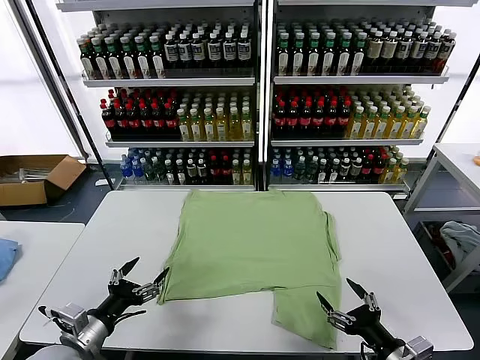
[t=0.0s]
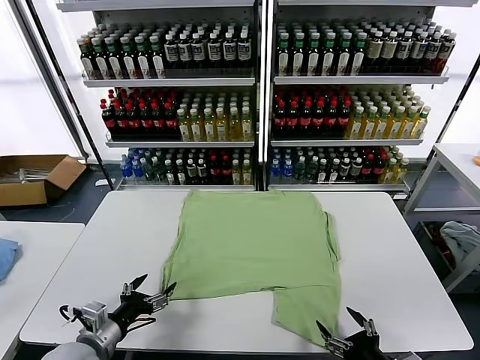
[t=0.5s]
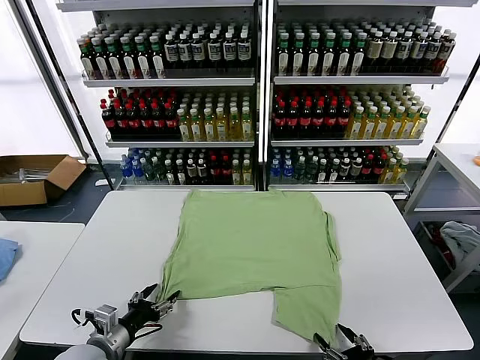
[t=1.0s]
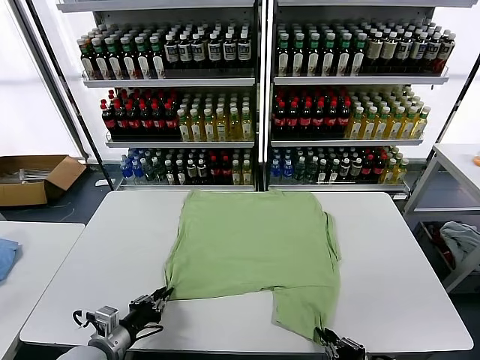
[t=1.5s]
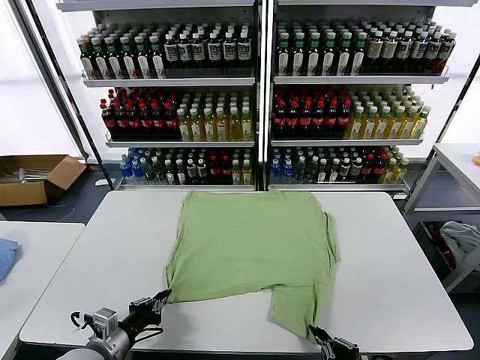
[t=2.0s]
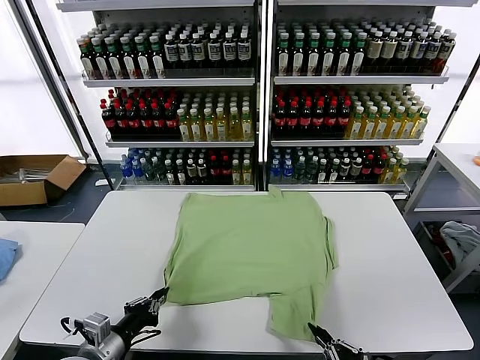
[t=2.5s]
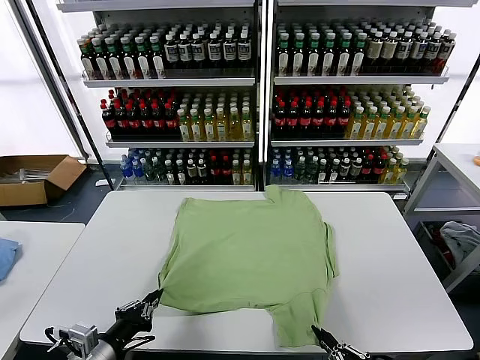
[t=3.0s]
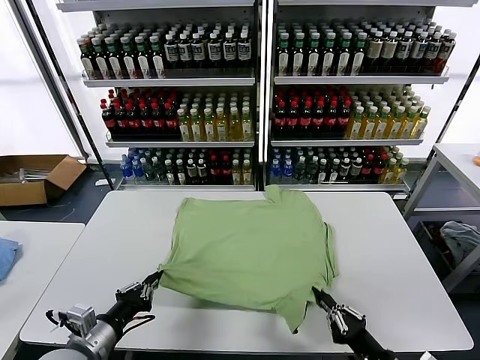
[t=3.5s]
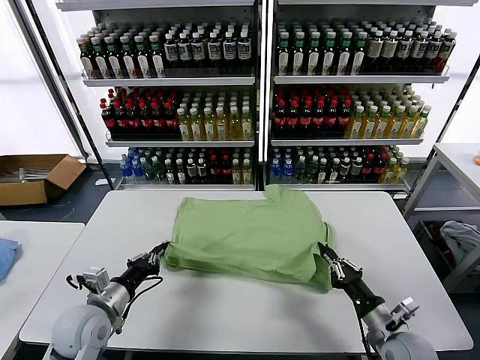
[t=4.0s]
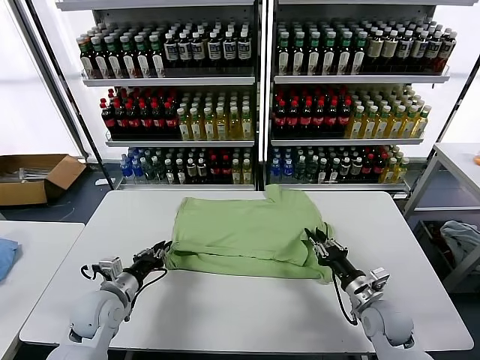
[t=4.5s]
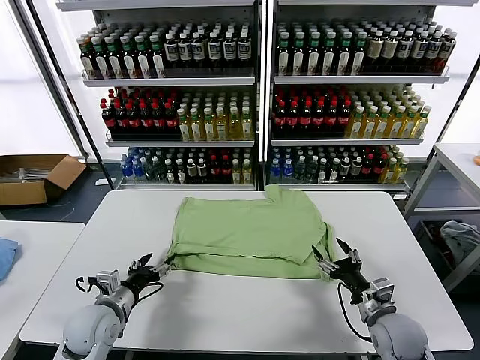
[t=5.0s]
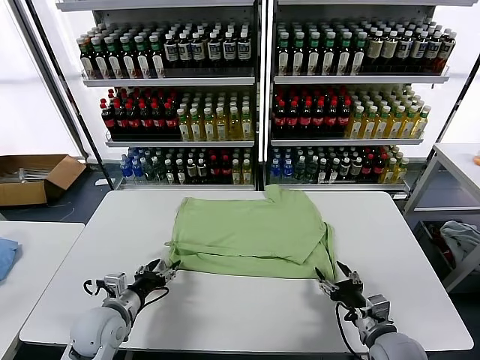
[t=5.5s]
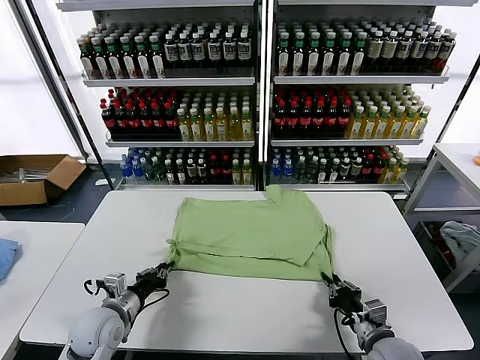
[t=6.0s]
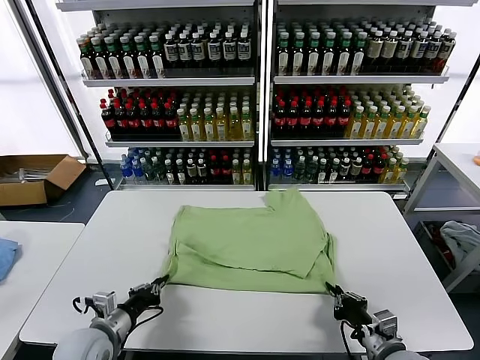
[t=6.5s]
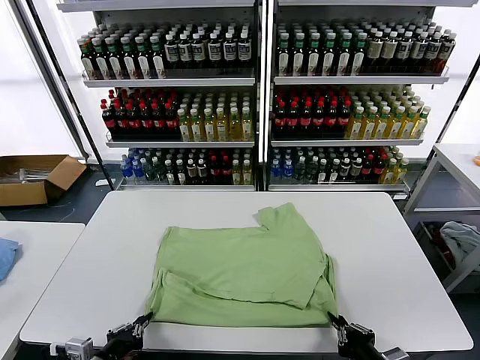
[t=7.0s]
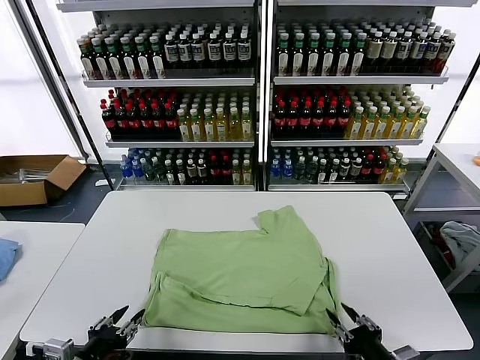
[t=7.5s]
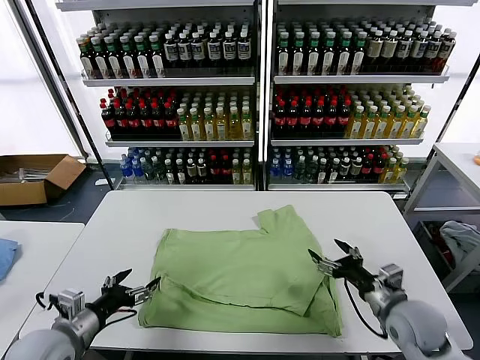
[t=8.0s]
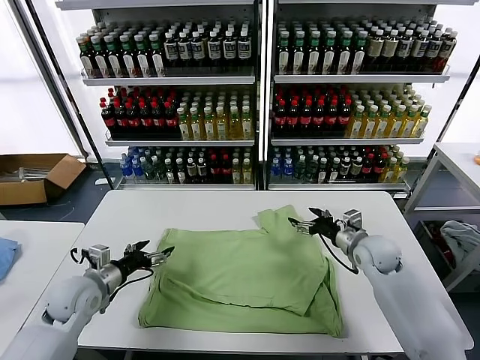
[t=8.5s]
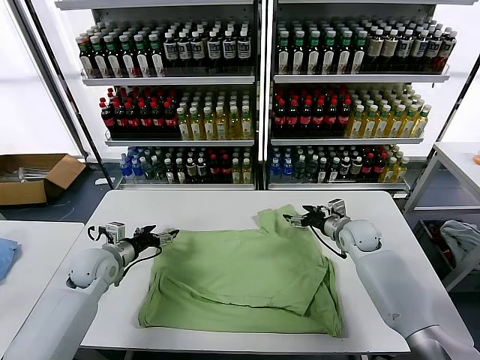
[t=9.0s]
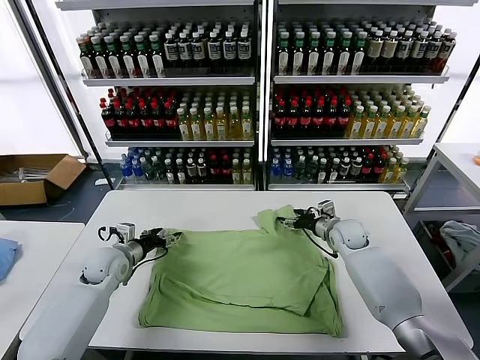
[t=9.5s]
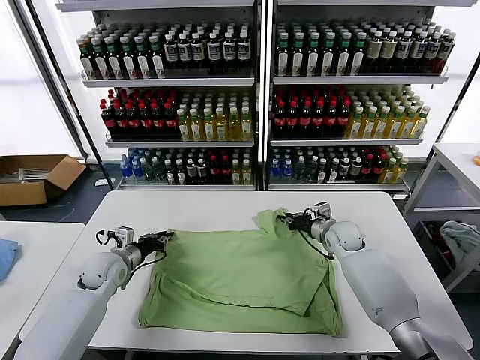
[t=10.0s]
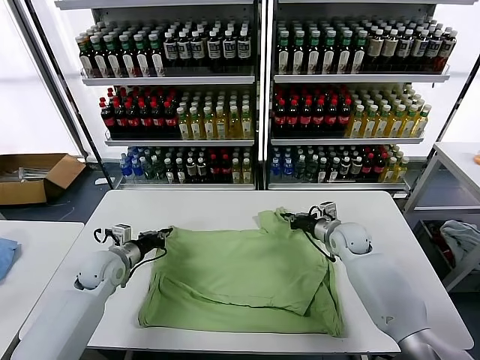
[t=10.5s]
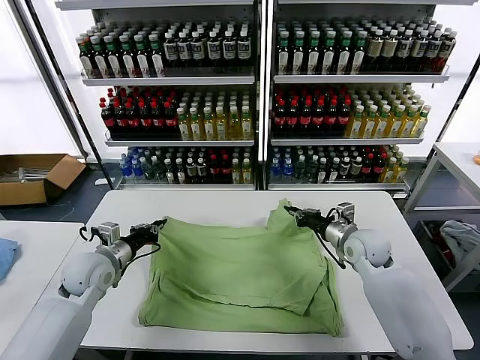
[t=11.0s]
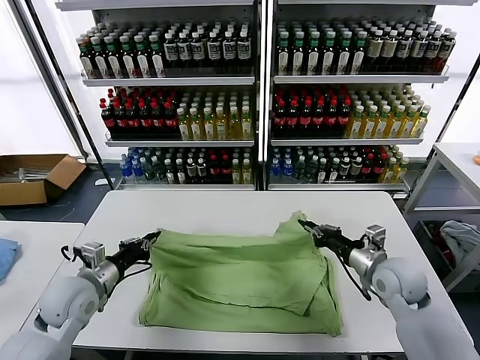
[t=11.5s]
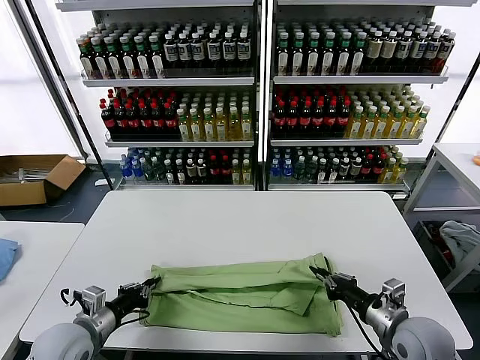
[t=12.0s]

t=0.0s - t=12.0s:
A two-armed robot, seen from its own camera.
Task of the whole recording: fold and organize the clothes.
Step, t=0.0s - t=1.5s: use both grippers simultaneously to clamp the lower edge of the clothing fabric.
Step, t=2.0s - t=4.5s: use both grippers to drag the lower edge of the fabric forward and fold it over the upper edge.
Step, t=5.5s - t=7.0s: Drag the clothes downward with both gripper.
Step, t=8.0s - t=10.0s: use both grippers simultaneously to clamp the upper edge of the clothing fabric.
t=2.0s - t=4.0s: The right gripper moves forward, roughly 15 cm; the left gripper heads forward, covering approximately 10 cm.
t=4.0s - t=6.0s: The left gripper opens and closes again, while the right gripper opens and closes again.
t=6.0s - t=8.0s: The left gripper travels backward and upward by roughly 10 cm, and opens, while the right gripper travels forward and upward by roughly 10 cm, and opens its fingers.
t=8.0s - t=10.0s: Both grippers move forward, some 20 cm. The left gripper closes its fingers; the right gripper closes its fingers.
t=10.0s - t=12.0s: The right gripper goes some 30 cm backward; the left gripper goes some 20 cm backward.

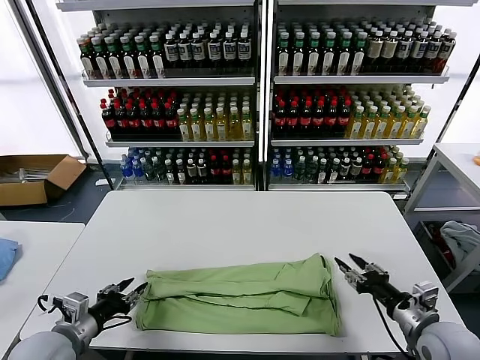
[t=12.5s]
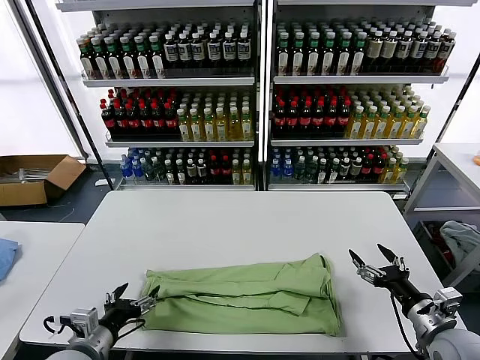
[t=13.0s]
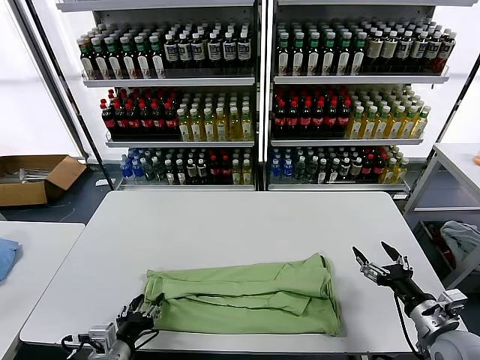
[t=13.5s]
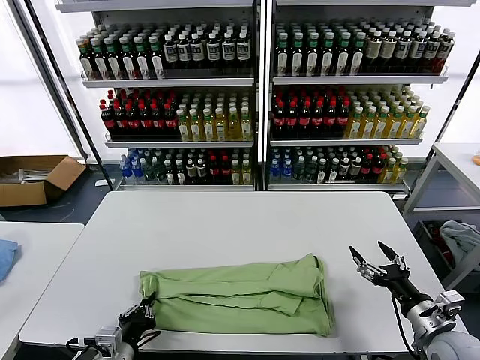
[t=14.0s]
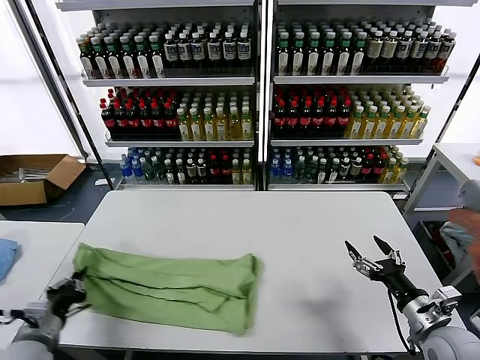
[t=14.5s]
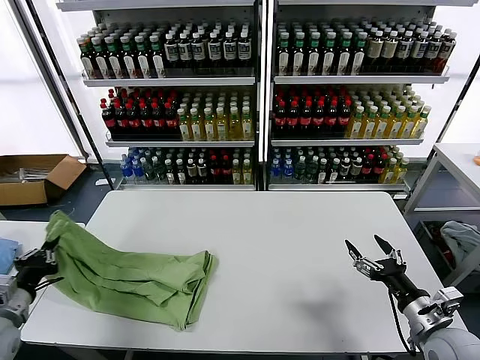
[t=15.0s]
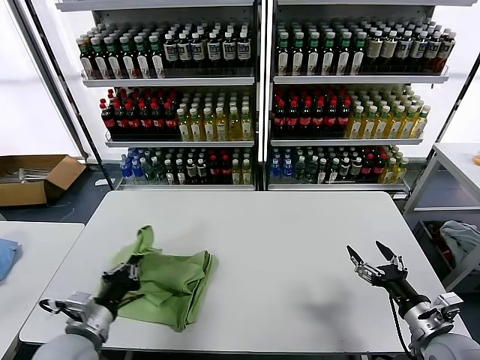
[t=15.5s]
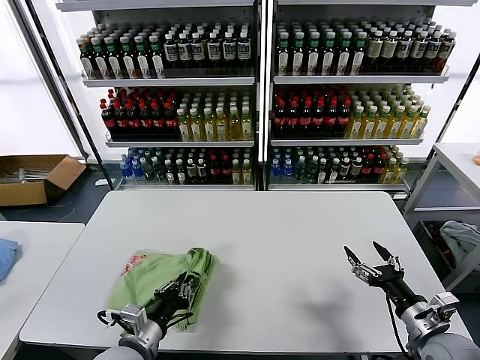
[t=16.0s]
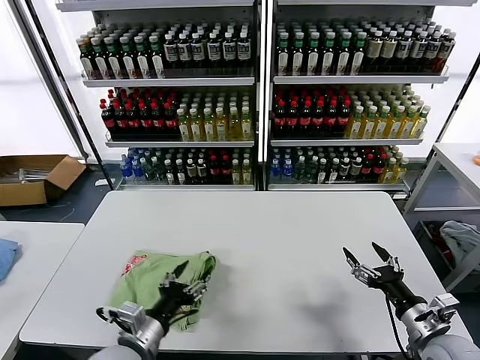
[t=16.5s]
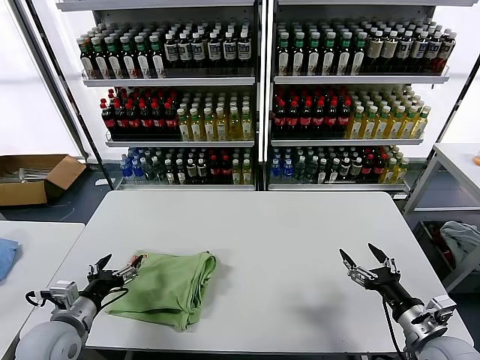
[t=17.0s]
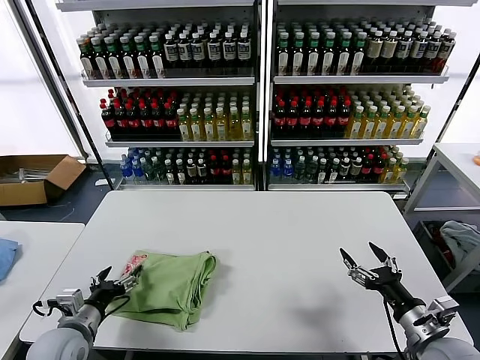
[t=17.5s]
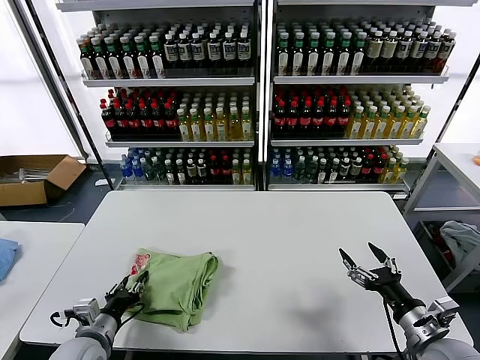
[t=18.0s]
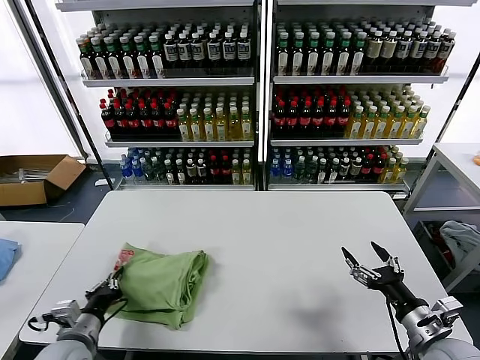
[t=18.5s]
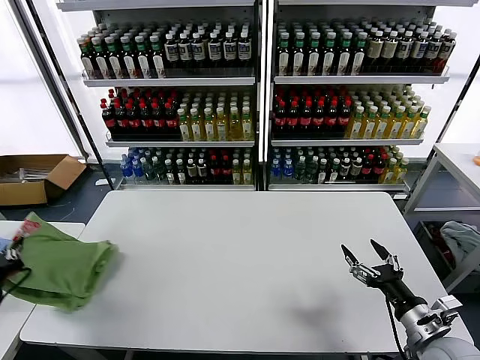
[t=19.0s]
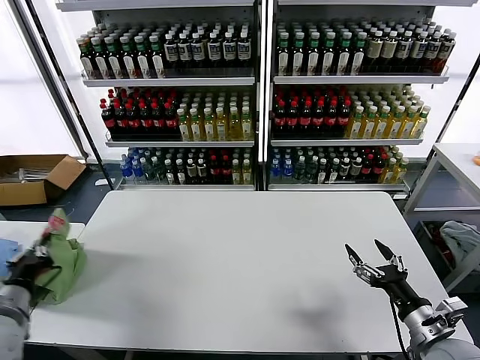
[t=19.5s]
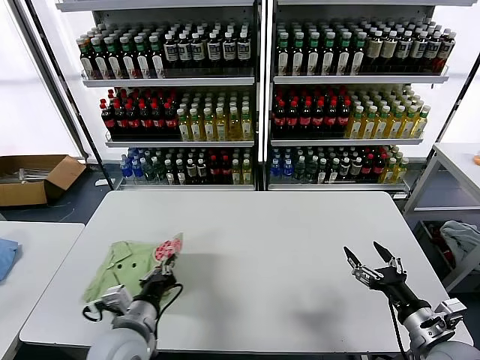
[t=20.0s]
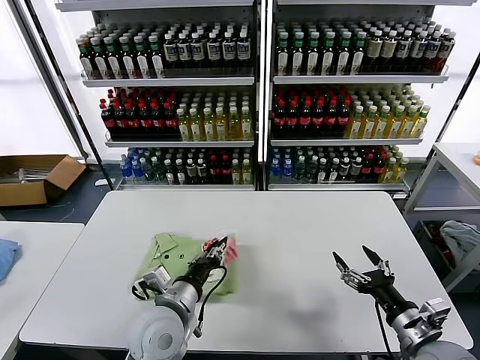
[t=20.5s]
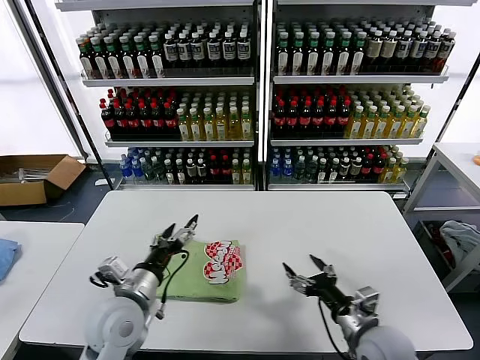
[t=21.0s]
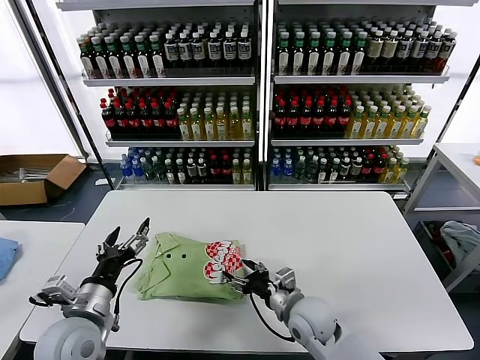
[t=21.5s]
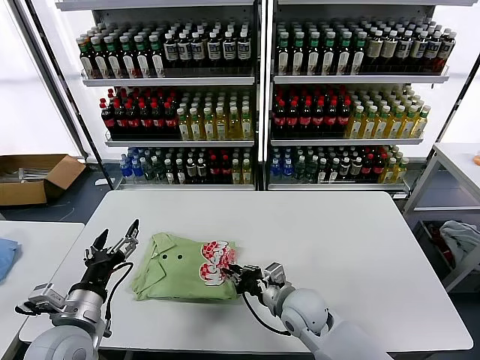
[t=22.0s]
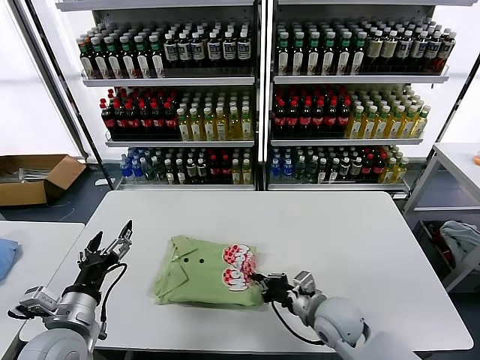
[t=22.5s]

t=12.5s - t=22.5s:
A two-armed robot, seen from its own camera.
Task of the whole recording: fold and organize the clothes.
Step, t=13.0s - t=13.5s: use the left gripper to clamp the left edge of the fabric.
Step, t=14.5s - t=16.0s: use the left gripper to drag the left edge of the fabric to the left and folds it over the right edge.
Step, t=16.5s - t=20.5s: Flip the folded clothes over with left gripper.
t=12.5s - t=14.5s: The right gripper opens; the left gripper moves to the left, about 5 cm, and closes.
t=14.5s - t=16.5s: The left gripper heads to the right, covering roughly 20 cm, and opens.
t=16.5s - t=18.5s: The left gripper goes roughly 15 cm to the left, and closes its fingers.
t=18.5s - t=20.5s: The left gripper goes approximately 20 cm to the right and upward.
t=20.5s - t=22.5s: The left gripper is displaced to the left by approximately 15 cm, and opens up, while the right gripper shifts about 20 cm to the left and forward, and closes its fingers.

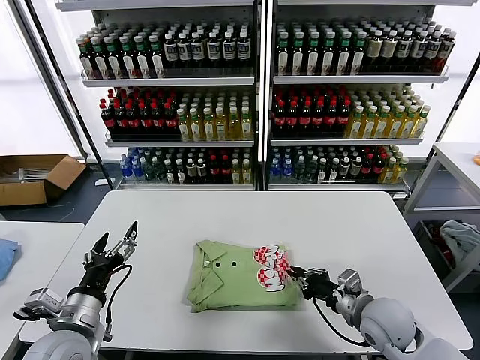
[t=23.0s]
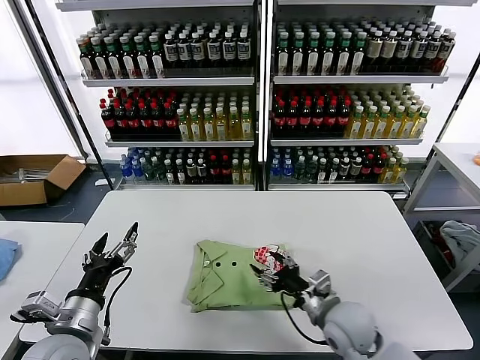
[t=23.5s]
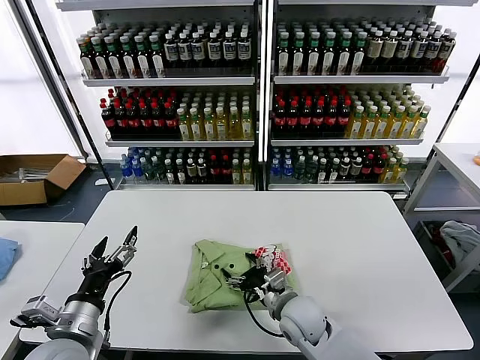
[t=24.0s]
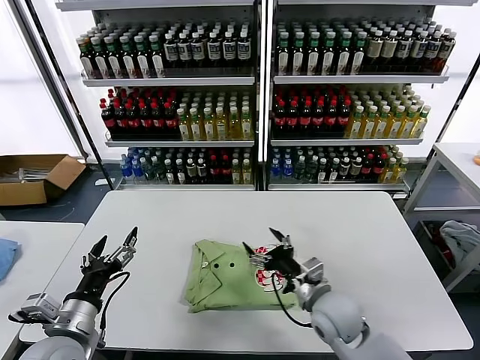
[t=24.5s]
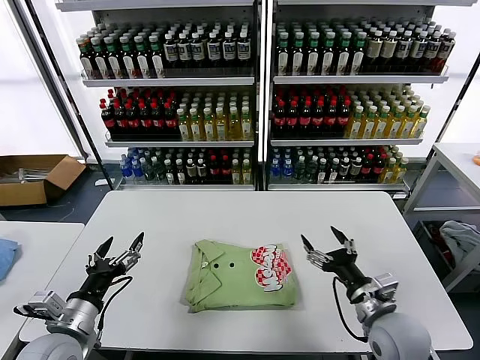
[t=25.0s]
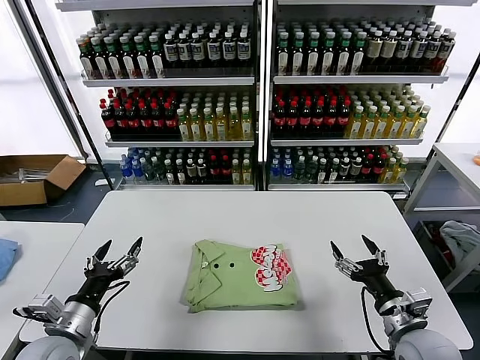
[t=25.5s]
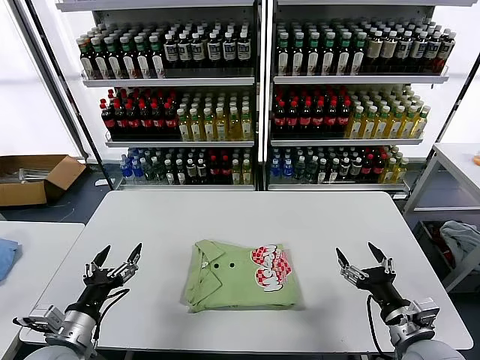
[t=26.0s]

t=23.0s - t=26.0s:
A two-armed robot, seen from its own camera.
Task of the whole recording: fold and organize the clothes.
t=23.0s - t=24.5s: The right gripper moves to the left, about 10 cm, and opens its fingers.
t=24.5s - t=26.0s: The left gripper moves roughly 5 cm, while the right gripper heads to the right and backward, covering approximately 20 cm.
